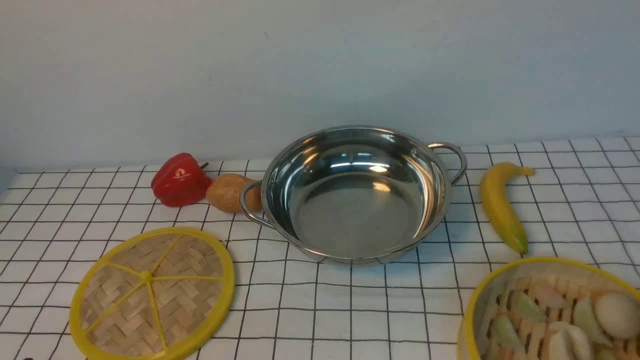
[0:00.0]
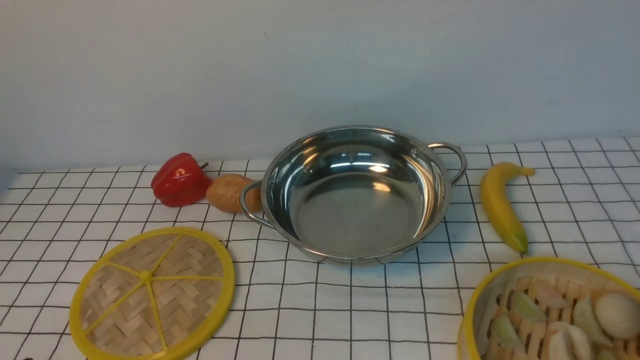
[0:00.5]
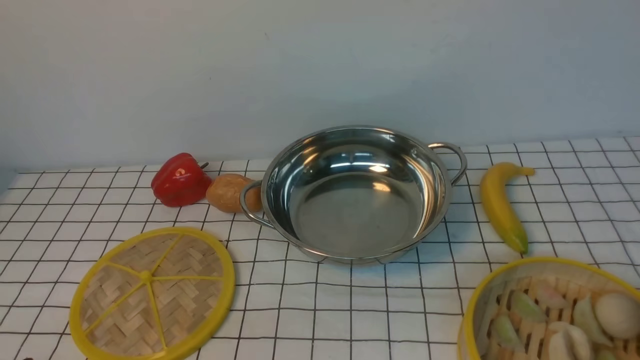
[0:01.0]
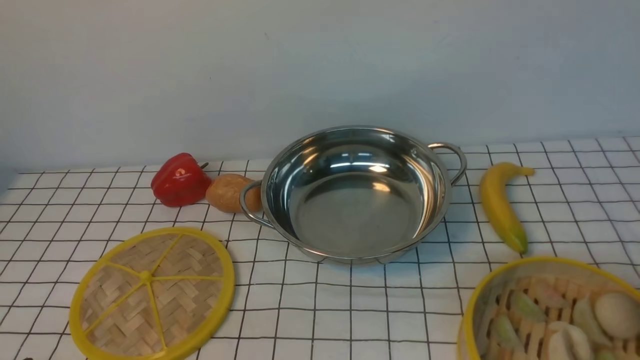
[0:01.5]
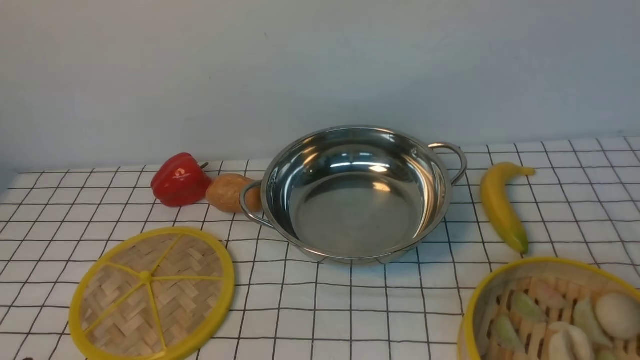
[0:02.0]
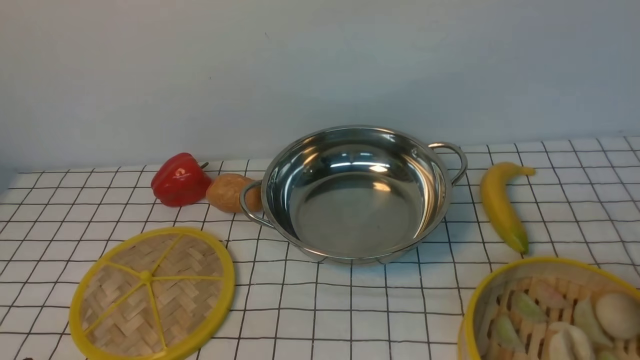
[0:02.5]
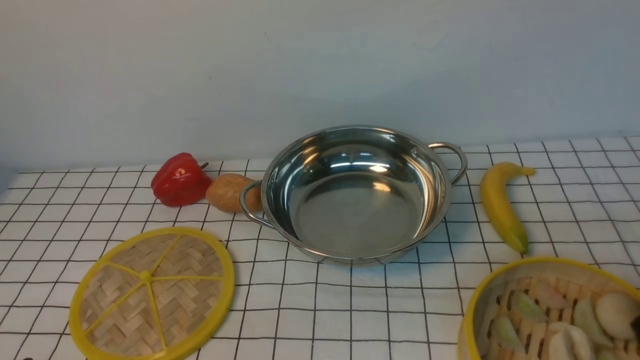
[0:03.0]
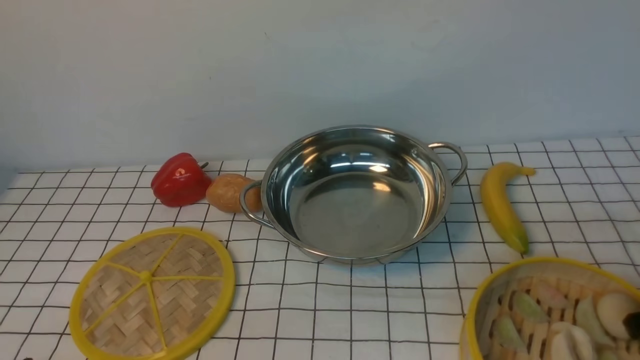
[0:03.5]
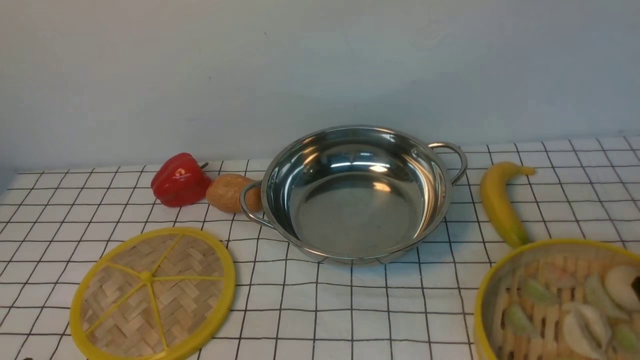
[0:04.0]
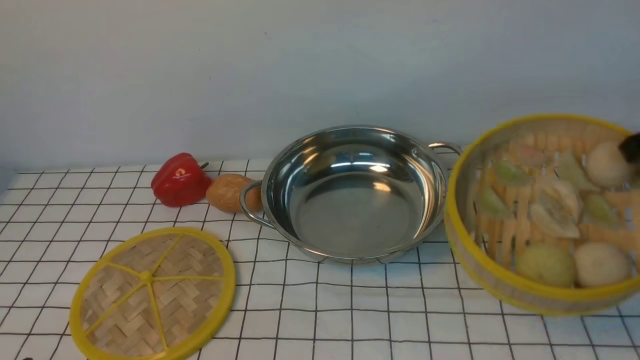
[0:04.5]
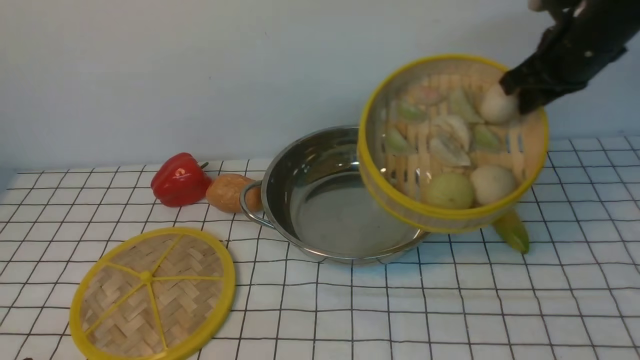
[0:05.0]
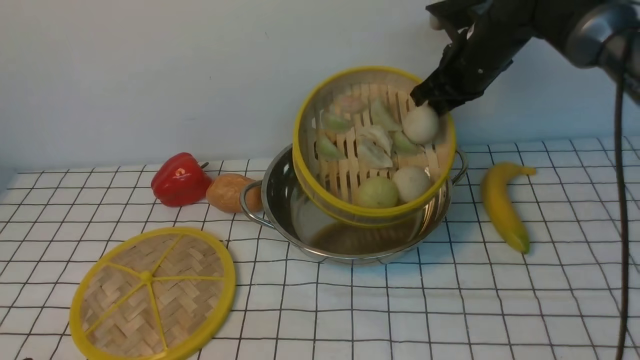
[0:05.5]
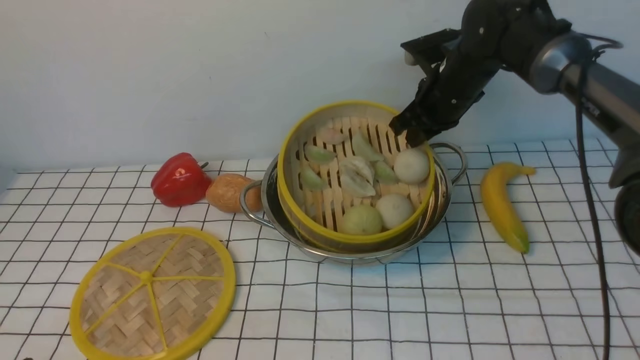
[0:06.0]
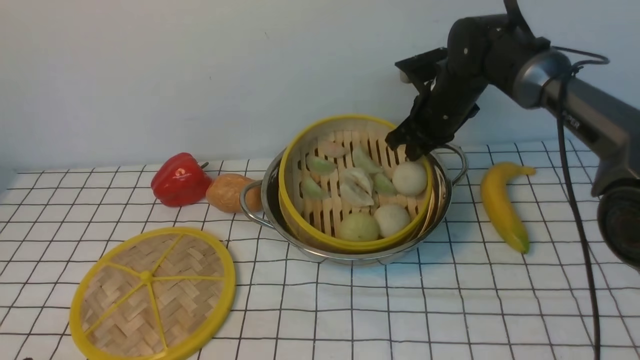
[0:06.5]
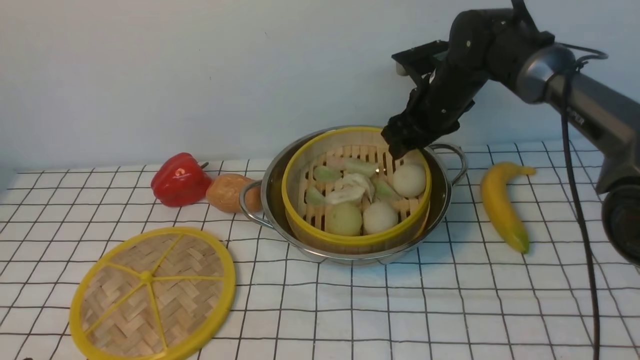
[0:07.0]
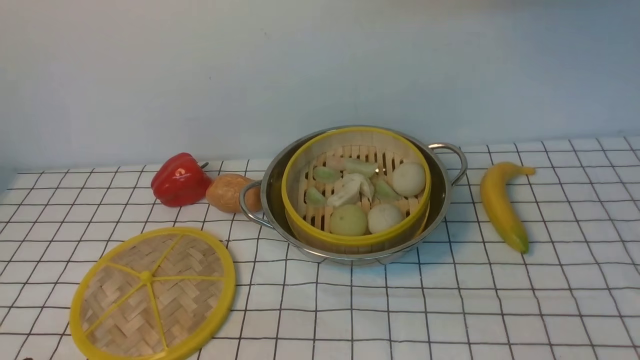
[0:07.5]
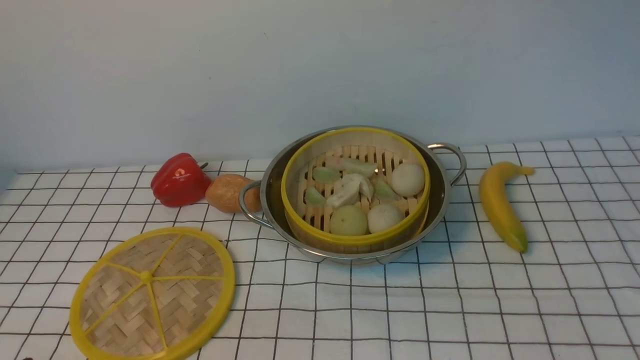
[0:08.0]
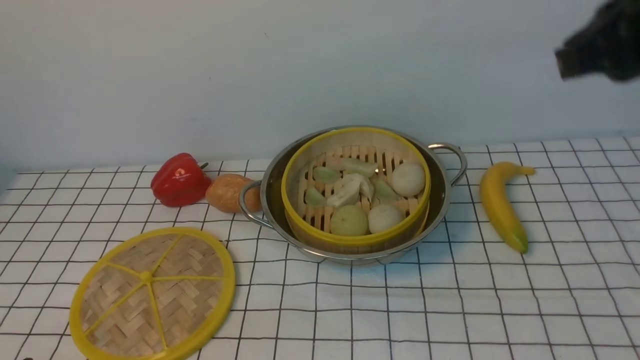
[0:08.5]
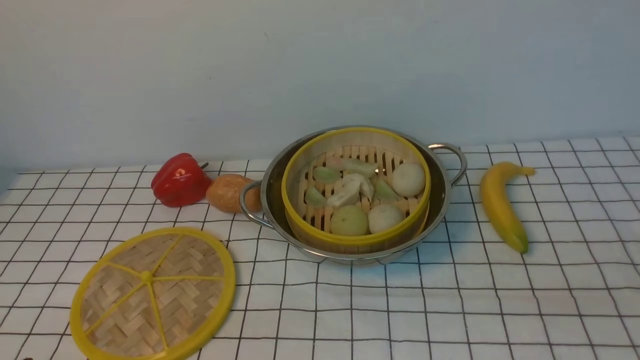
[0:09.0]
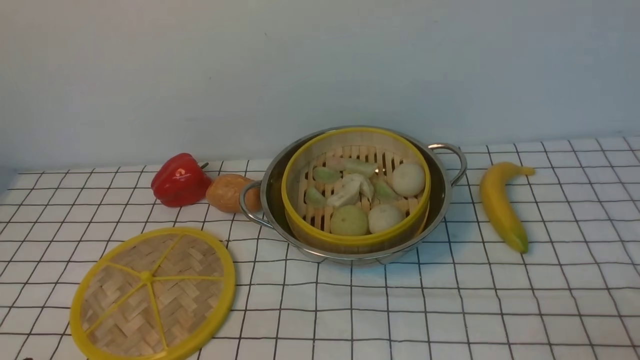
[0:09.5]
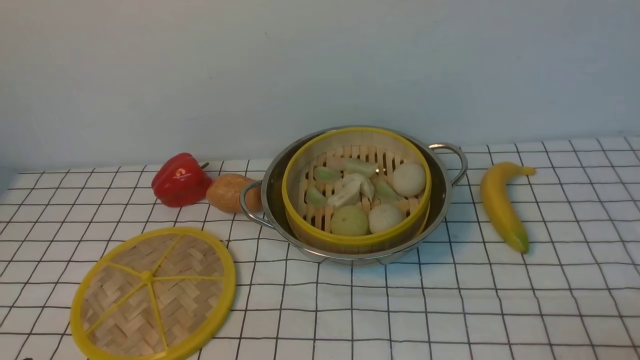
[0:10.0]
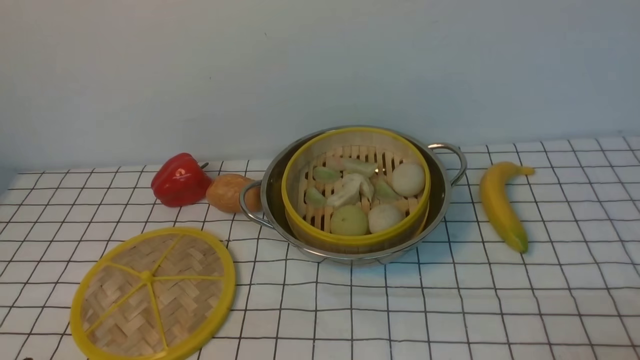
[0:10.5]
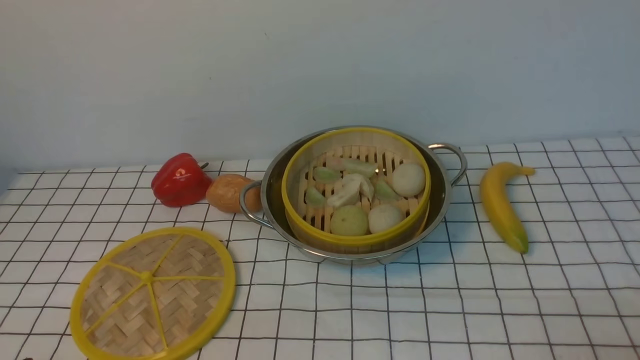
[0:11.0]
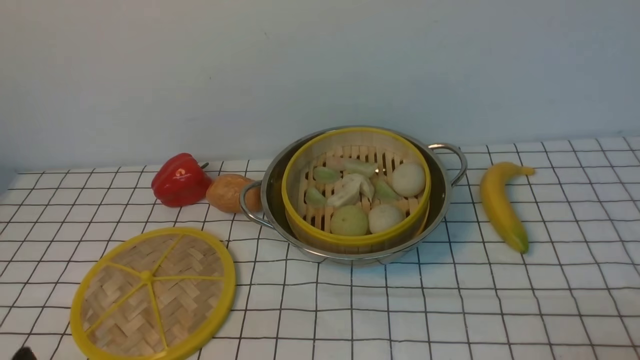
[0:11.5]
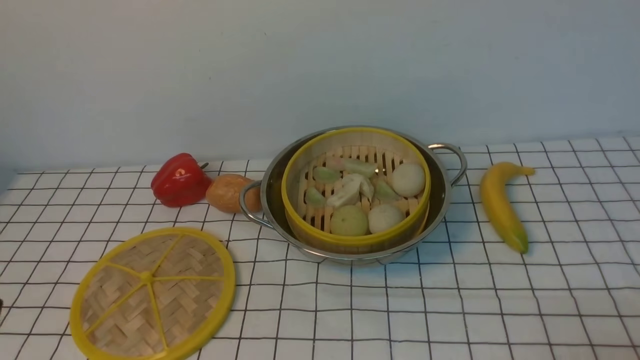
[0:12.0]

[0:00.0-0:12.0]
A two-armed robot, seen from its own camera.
Task of the whole recording: place the steamer in the pot on the white tablecloth, and put the lid on the steamer.
Step, 0:04.5 to 0:07.0: use the right arm to put the steamer into the iron steamer pot in the middle.
0:02.0 to 0:04.0: The right gripper shifts roughly 20 cm forward and downward, and closes its fingers.
0:04.0 to 0:06.0: The right gripper is displaced forward and to the left by roughly 30 cm.
0:06.0 to 0:08.0: The right gripper is displaced upward by roughly 25 cm, and opens and closes again.

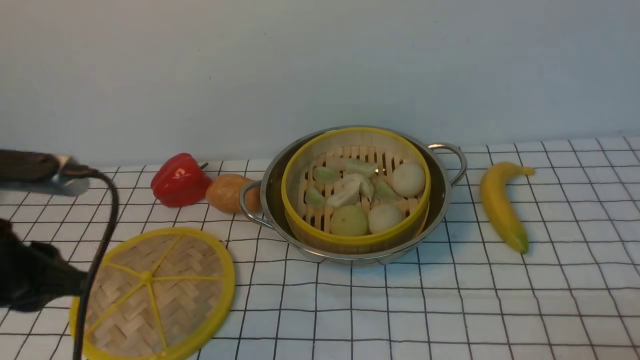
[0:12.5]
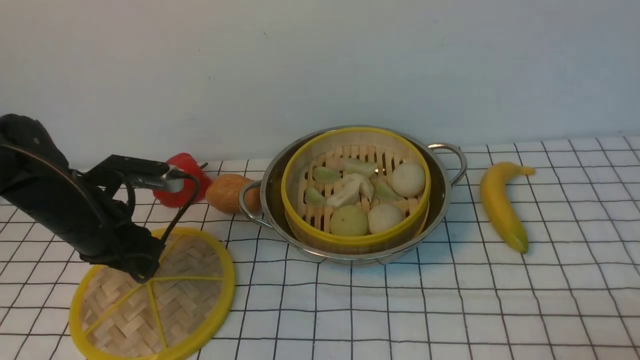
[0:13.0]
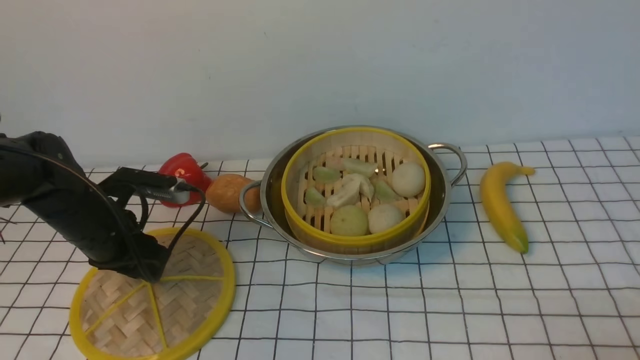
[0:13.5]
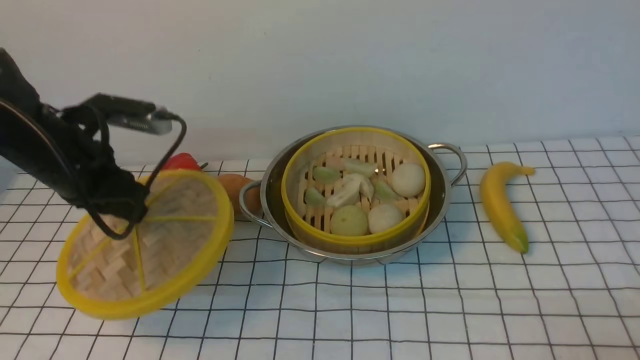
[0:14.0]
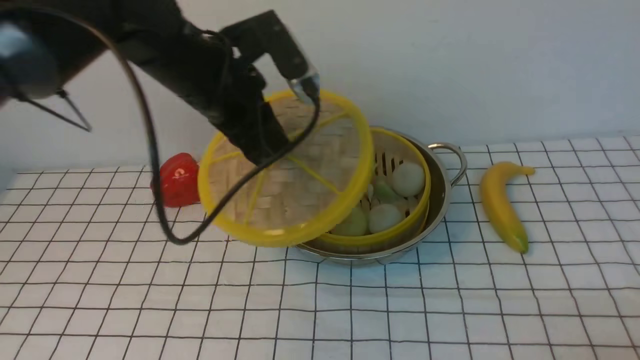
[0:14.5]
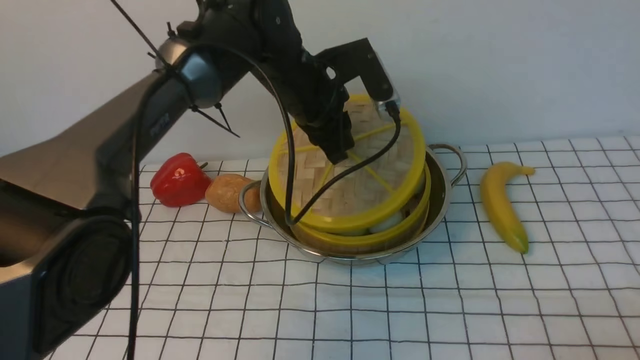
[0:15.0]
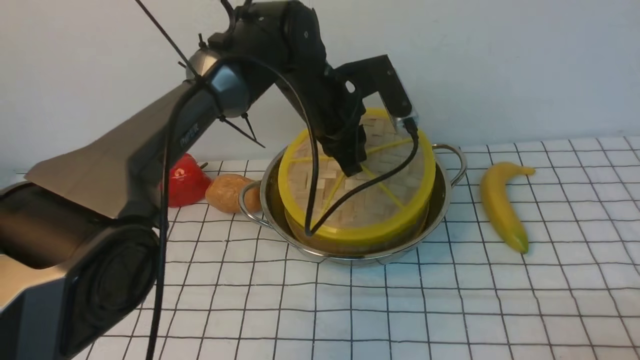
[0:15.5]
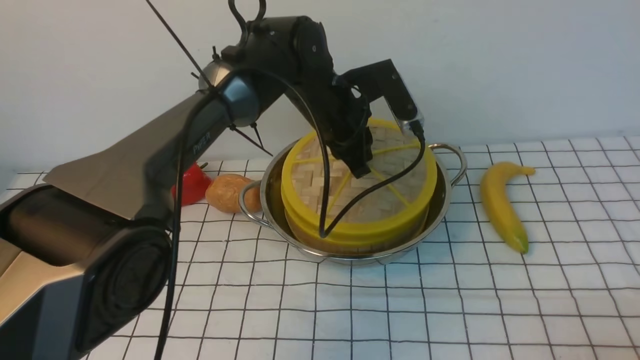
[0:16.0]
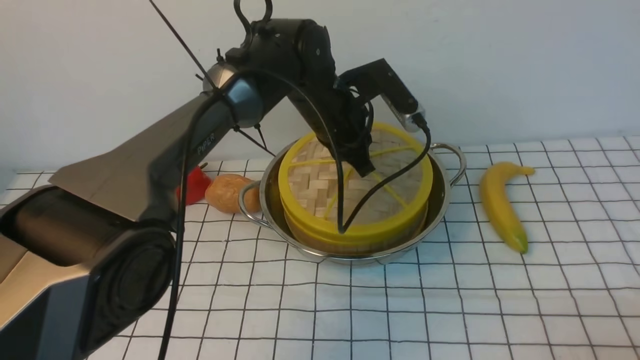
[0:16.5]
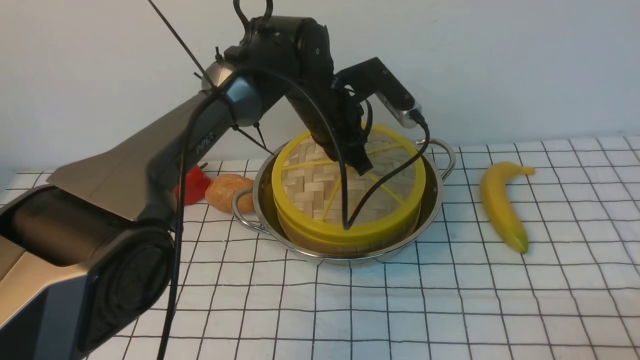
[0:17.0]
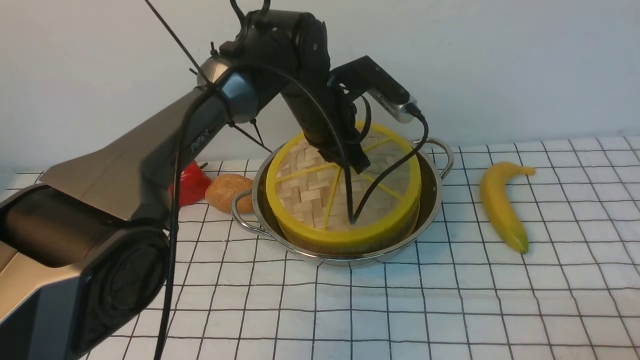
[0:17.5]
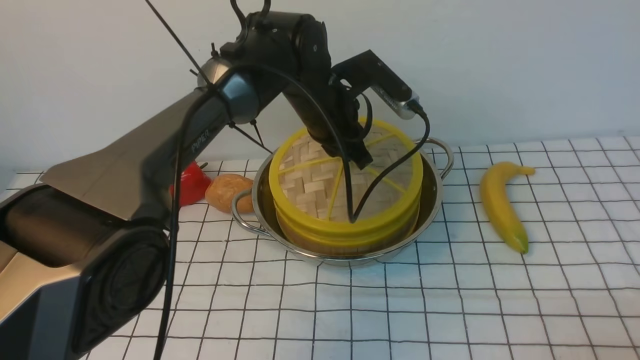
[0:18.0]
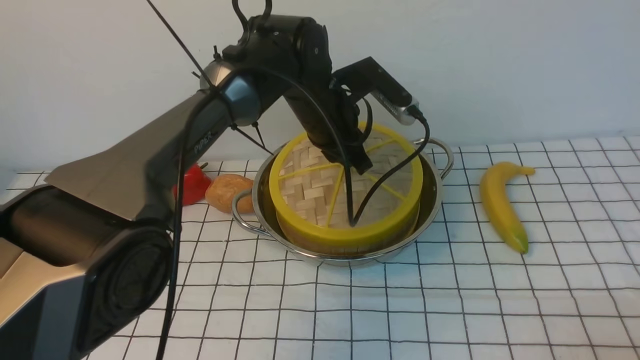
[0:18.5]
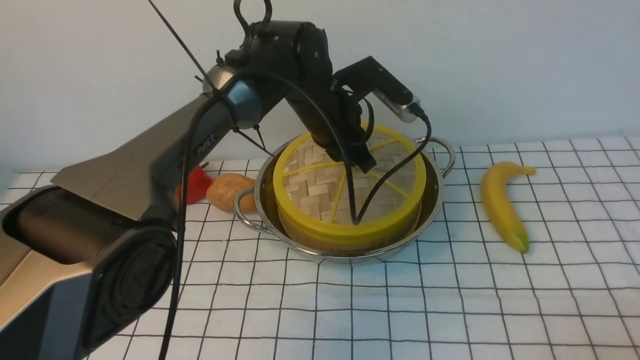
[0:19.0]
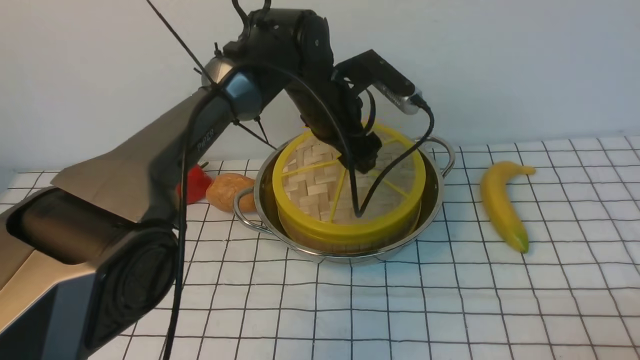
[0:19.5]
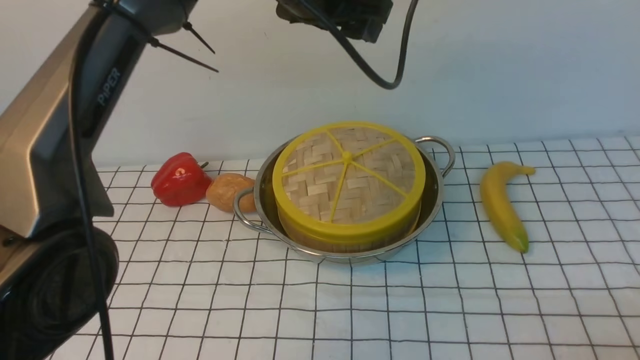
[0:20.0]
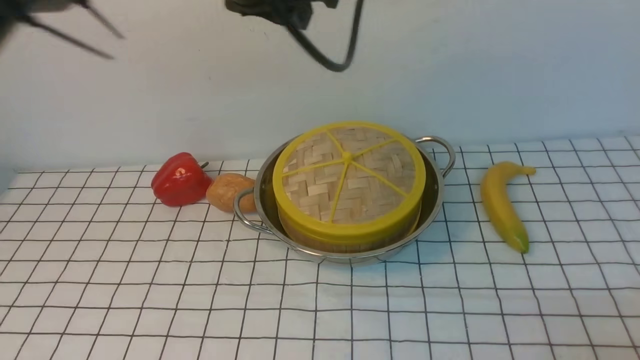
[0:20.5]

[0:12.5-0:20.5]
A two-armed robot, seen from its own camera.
Task of the whole recording: place the steamer in the pot on the white tablecloth, and put the lid on the steamer.
Step, 0:14.0 to 0:19.5: use the left arm to place the steamer lid on the steamer.
0:12.5 to 0:14.5: The left gripper moves forward and to the right, about 25 cm.
0:14.5 to 0:16.5: The left gripper is displaced to the right, downward and forward by some 15 cm.
0:16.5 to 0:18.5: The grippers move only a little.
0:18.5 to 0:20.5: The left gripper goes roughly 25 cm upward and backward, and opens, then closes once more.
